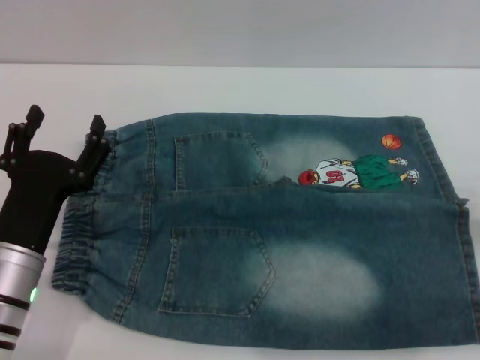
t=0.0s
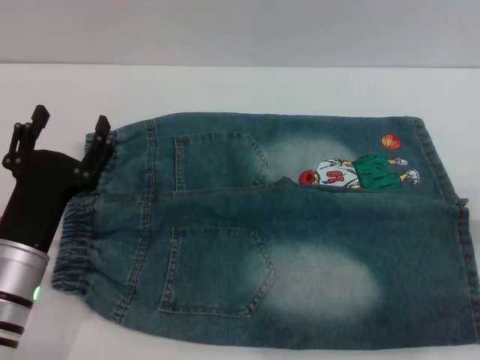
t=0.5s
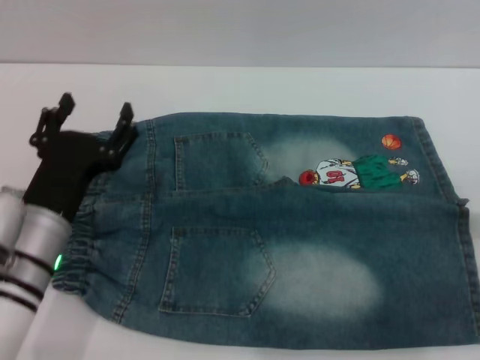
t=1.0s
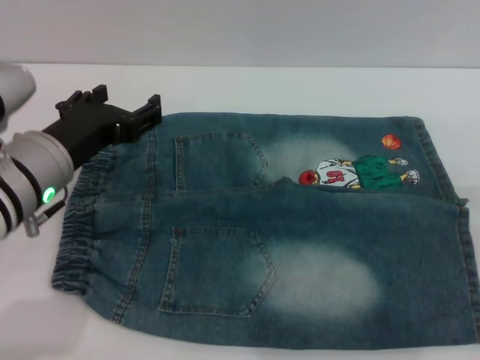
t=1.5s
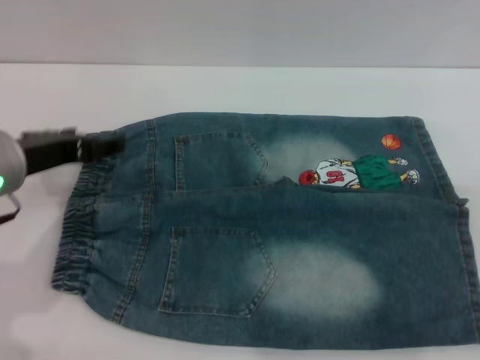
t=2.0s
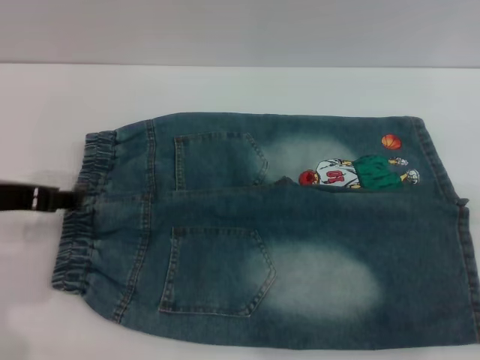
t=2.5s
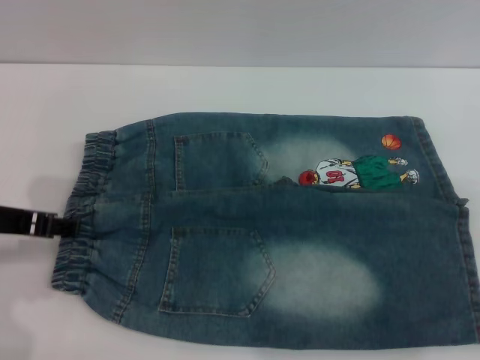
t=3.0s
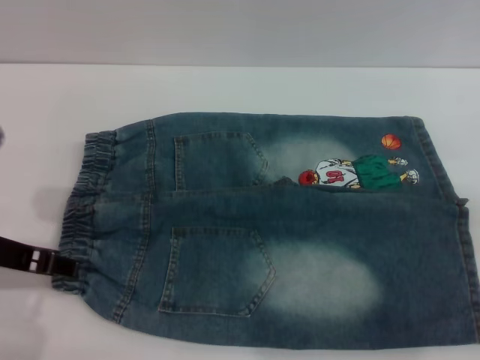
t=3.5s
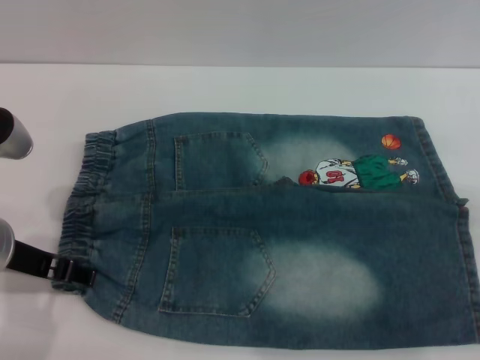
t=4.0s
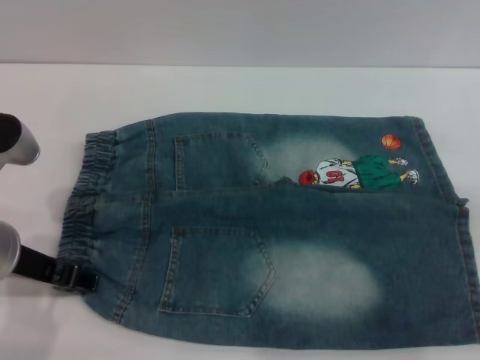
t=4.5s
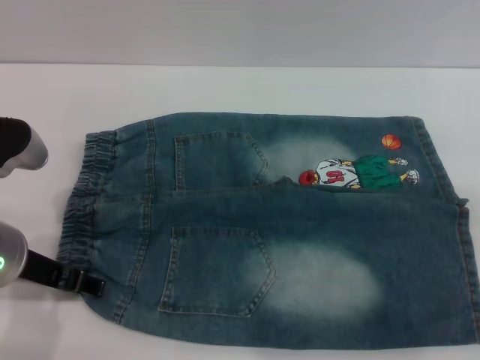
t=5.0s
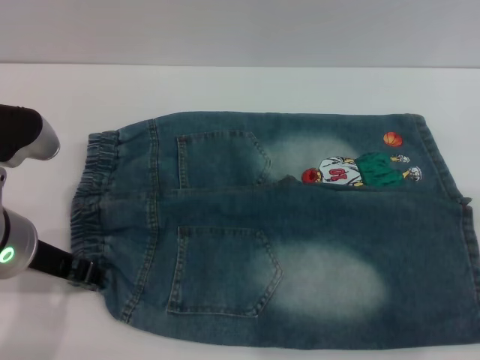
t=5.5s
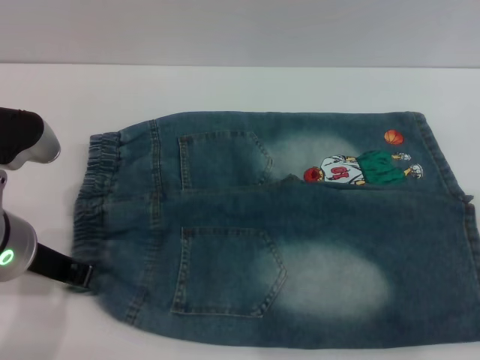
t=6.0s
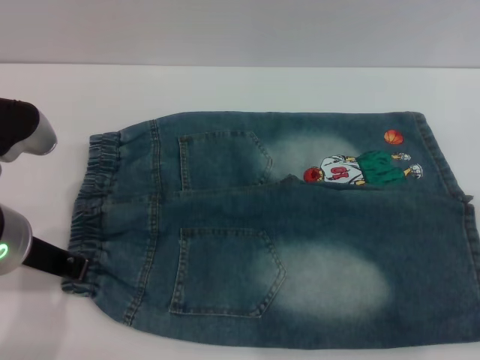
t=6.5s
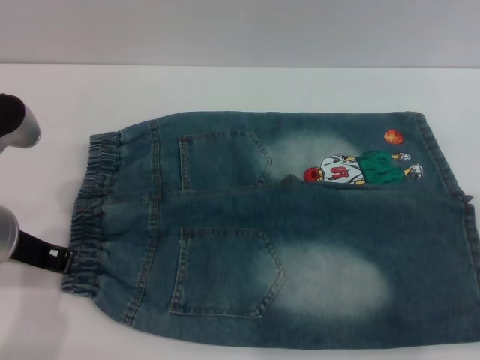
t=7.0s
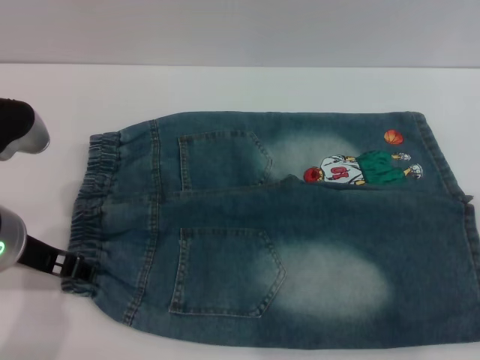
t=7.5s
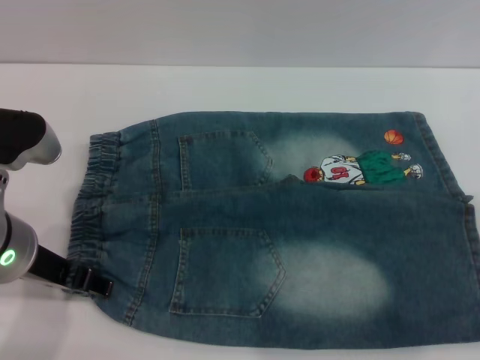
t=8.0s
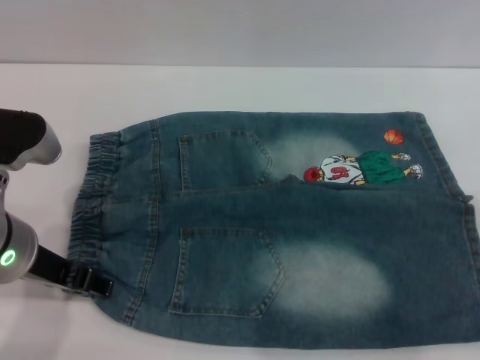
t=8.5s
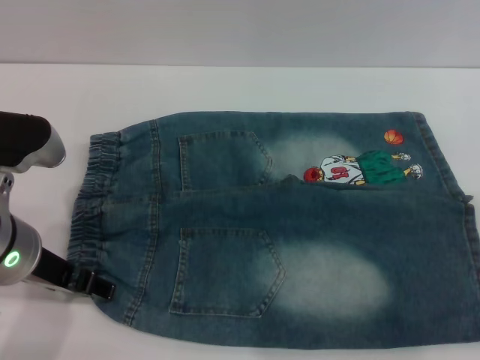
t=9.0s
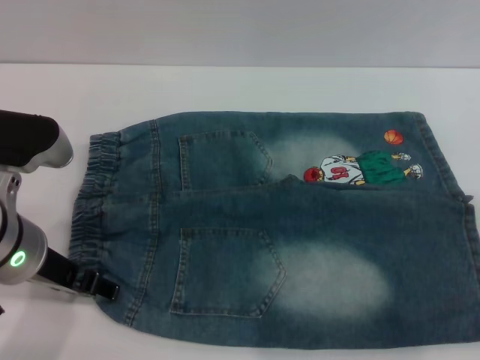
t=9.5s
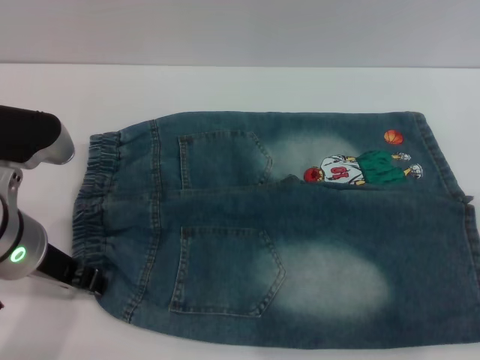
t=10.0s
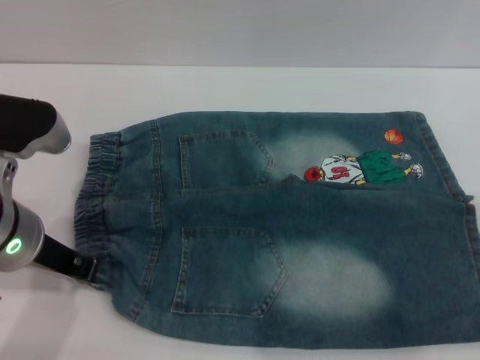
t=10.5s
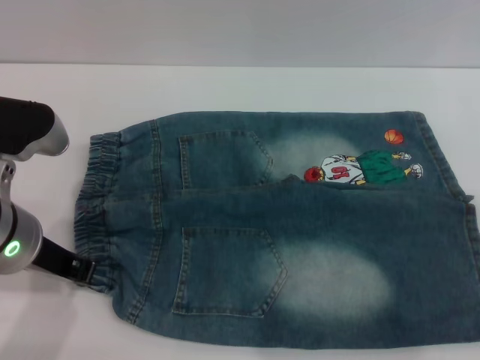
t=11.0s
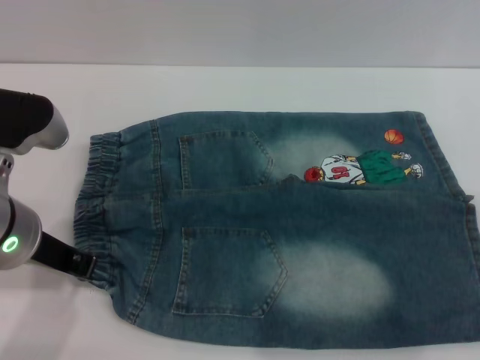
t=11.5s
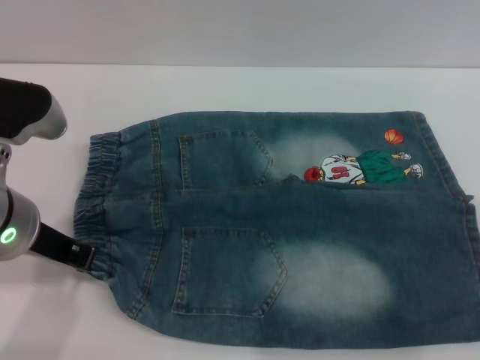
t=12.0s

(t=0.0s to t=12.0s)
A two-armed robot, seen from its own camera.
t=0.0s - t=2.0s: The left gripper is displaced upward and forward by roughly 15 cm.
t=4.0s - t=6.0s: The left gripper closes up.
t=6.0s - t=8.0s: The left gripper opens its fingers.
t=8.0s - t=10.0s: Both grippers stay about where they are.
t=10.0s - t=12.0s: The left gripper closes.

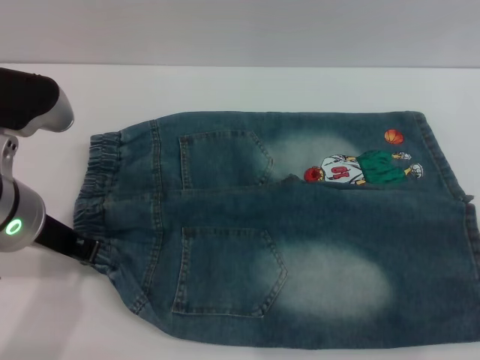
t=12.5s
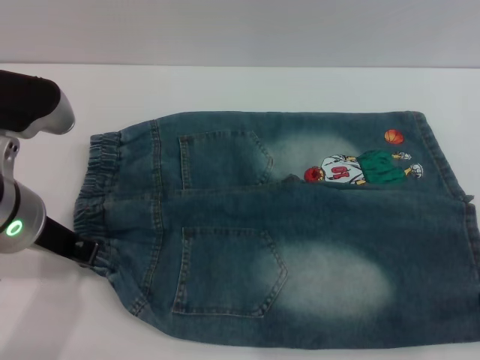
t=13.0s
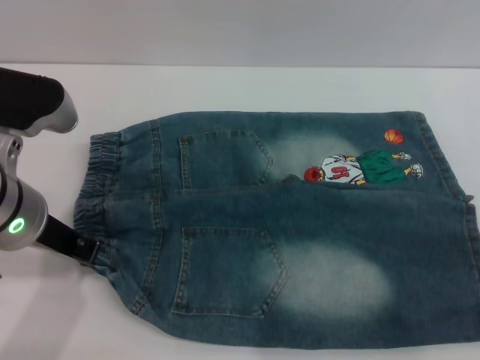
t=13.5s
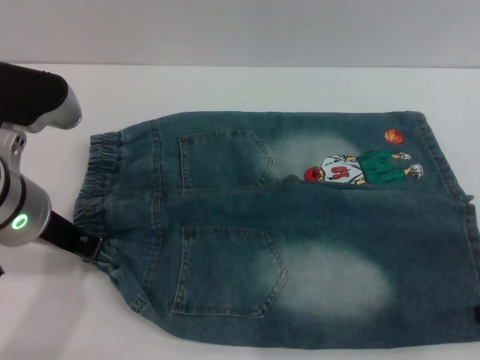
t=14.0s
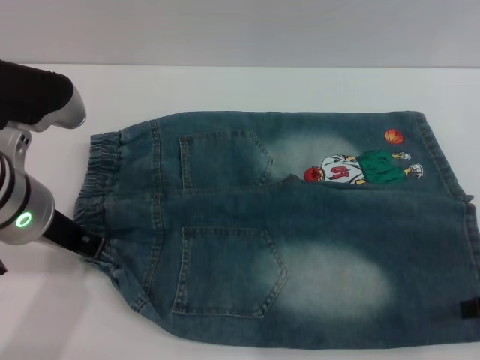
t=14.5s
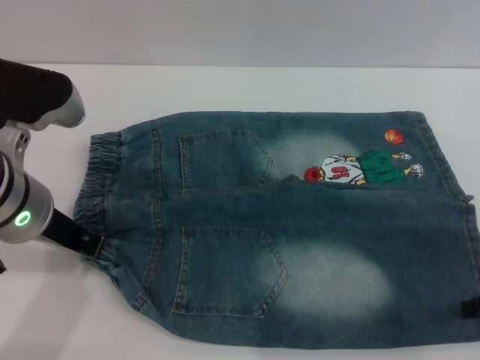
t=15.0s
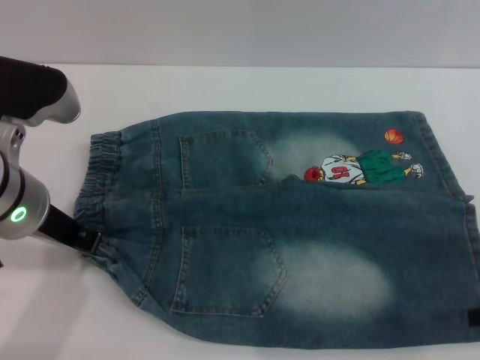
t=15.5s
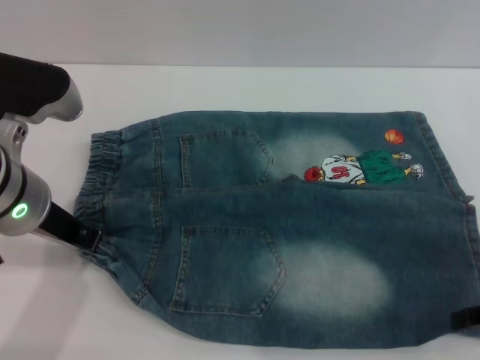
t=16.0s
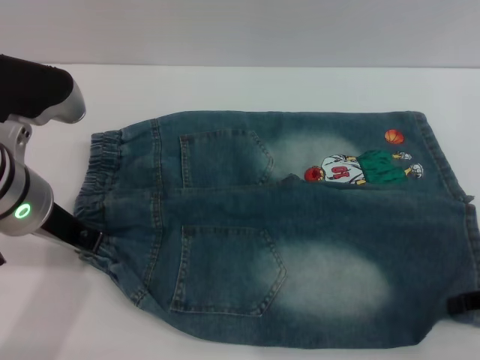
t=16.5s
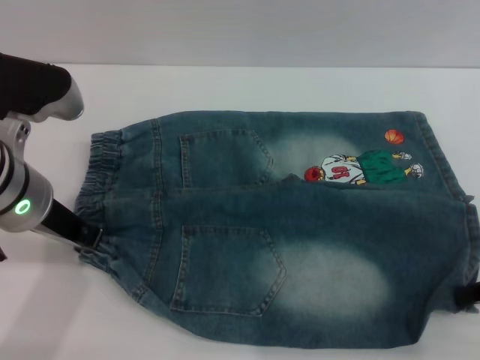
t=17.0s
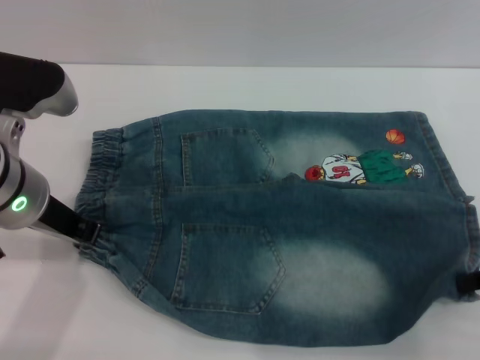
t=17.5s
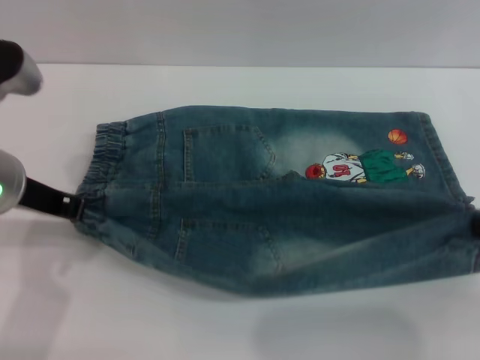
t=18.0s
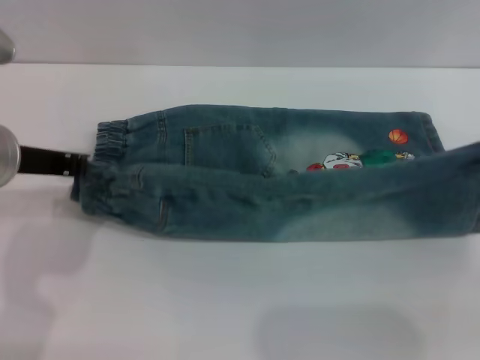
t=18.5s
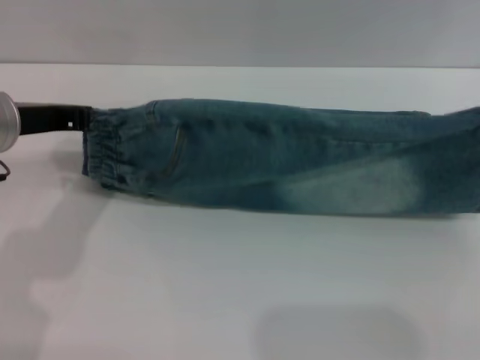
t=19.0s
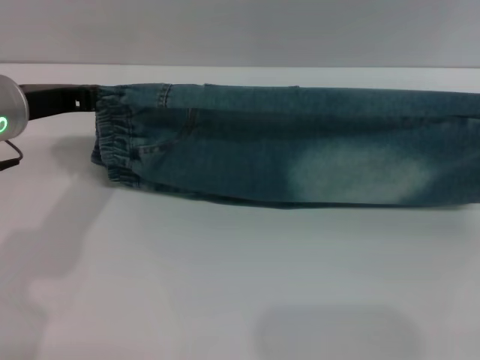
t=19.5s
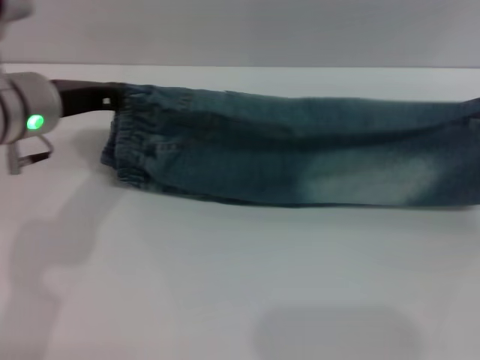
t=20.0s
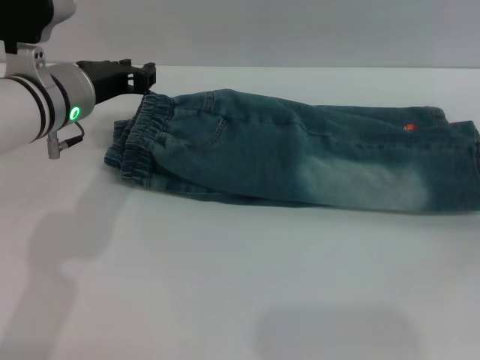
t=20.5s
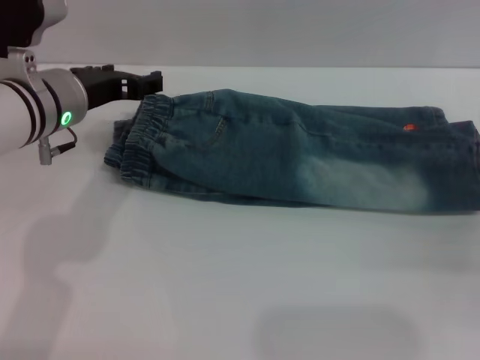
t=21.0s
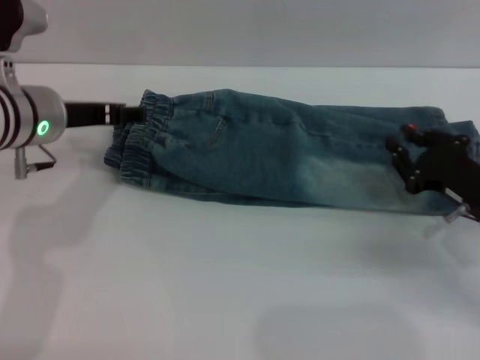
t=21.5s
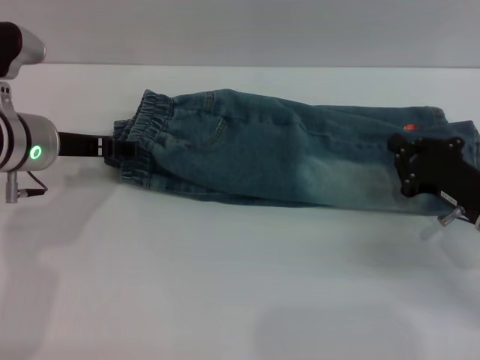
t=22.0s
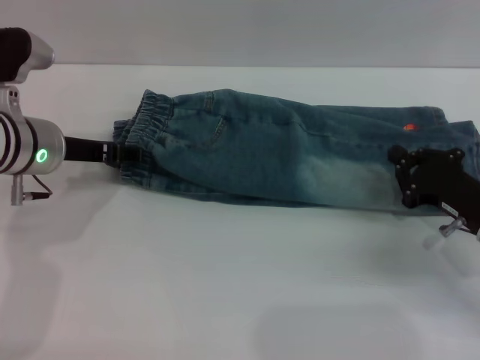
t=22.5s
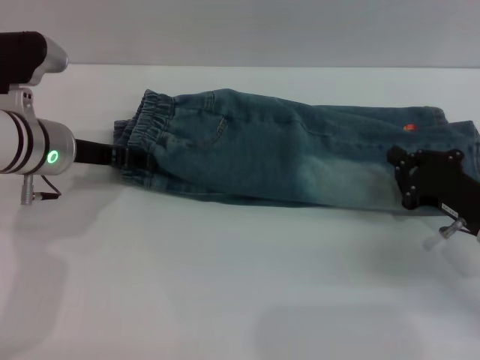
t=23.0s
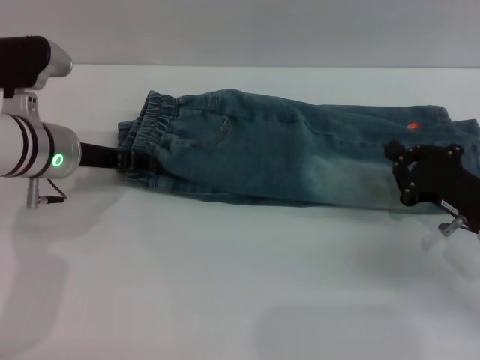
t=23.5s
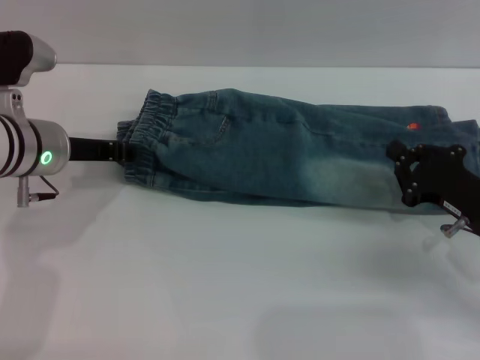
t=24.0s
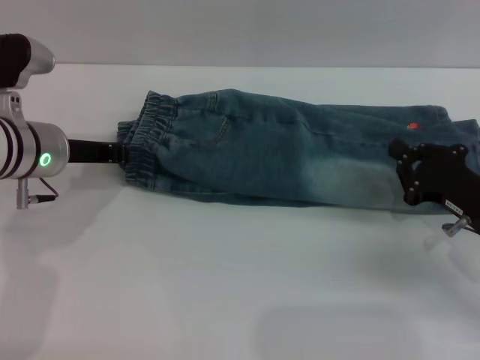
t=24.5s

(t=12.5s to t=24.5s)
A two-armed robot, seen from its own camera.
Step, t=12.5s - t=20.5s: Fold the bottom of the pants upward with both grippers.
t=12.5s - t=16.5s: The grippers make only small movements.
t=16.5s - t=18.5s: The right gripper shifts about 5 cm upward, and closes its fingers.
t=18.5s - t=20.5s: The right gripper heads downward and to the right, covering some 10 cm. The left gripper goes some 5 cm forward.
t=20.5s - t=22.5s: The left gripper opens its fingers. Meanwhile the right gripper travels to the left and downward by about 15 cm, and opens, then closes once more.
t=22.5s - t=24.5s: The left gripper closes its fingers.

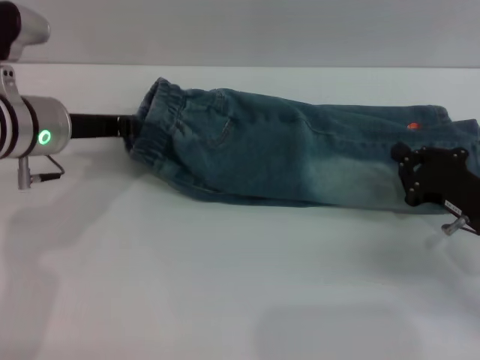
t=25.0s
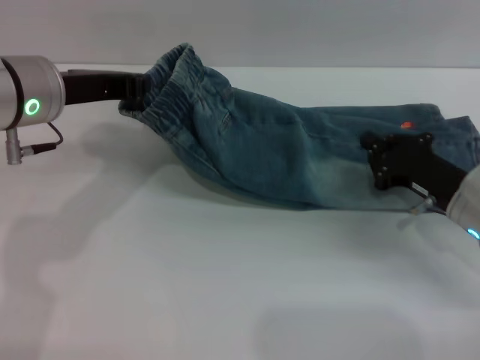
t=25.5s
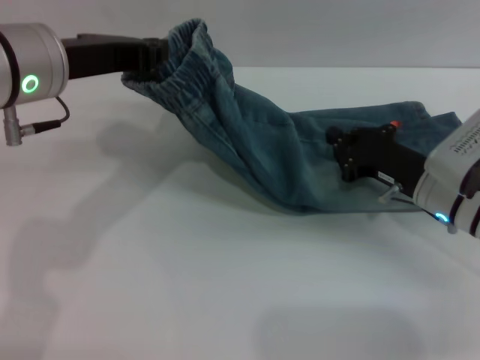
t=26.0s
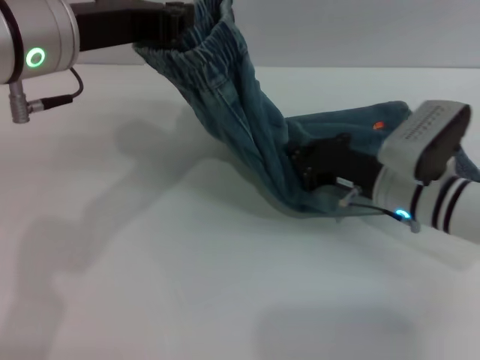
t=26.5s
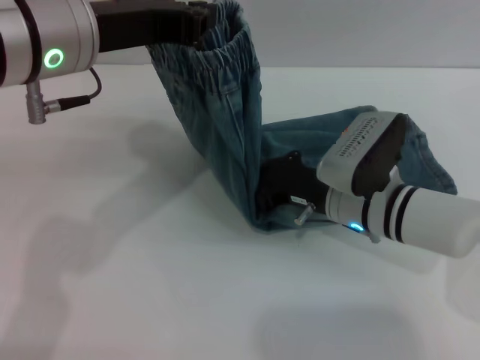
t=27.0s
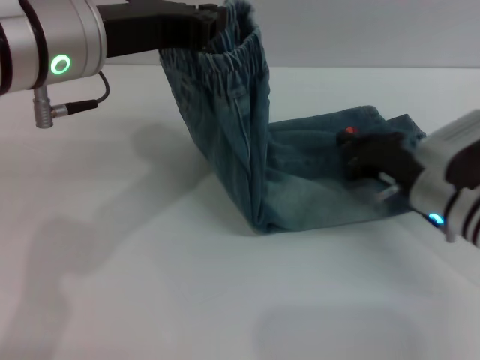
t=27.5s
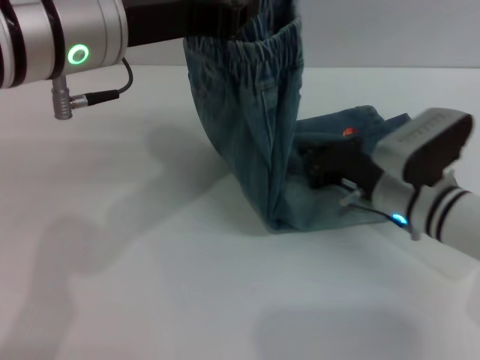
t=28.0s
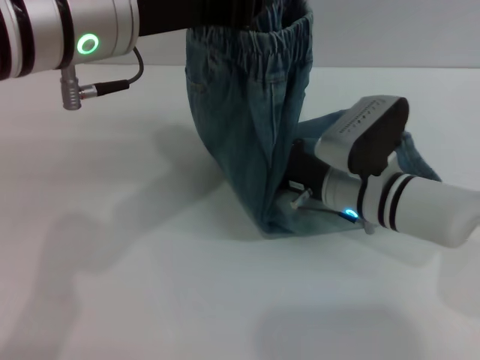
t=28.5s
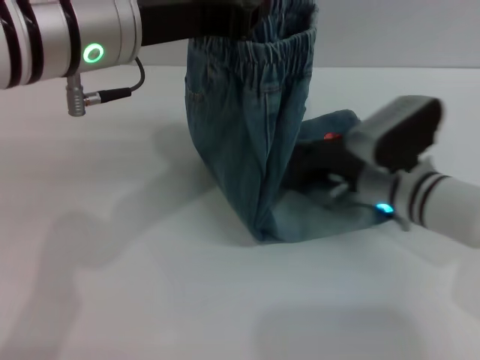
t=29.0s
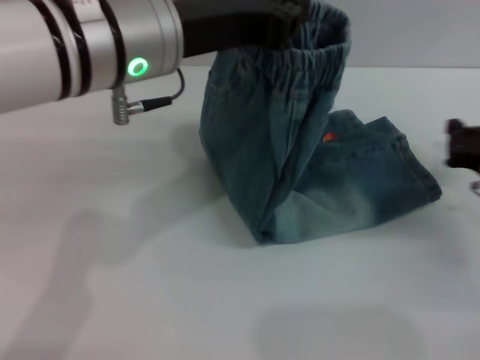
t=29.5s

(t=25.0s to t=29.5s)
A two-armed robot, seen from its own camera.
t=25.0s - t=27.0s: The left gripper is displaced upward and to the right by about 15 cm. The right gripper goes some 15 cm to the left.
t=27.0s - t=29.5s: The left gripper ends up roughly 5 cm from where it was. The right gripper swings left and right, some 15 cm each way, with 2 reversals.
